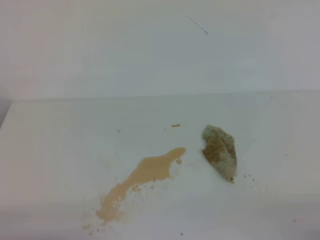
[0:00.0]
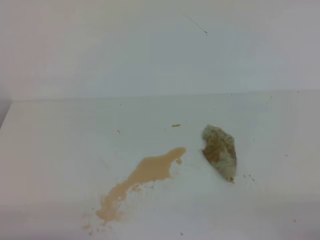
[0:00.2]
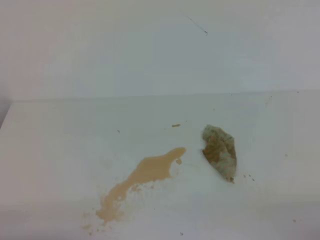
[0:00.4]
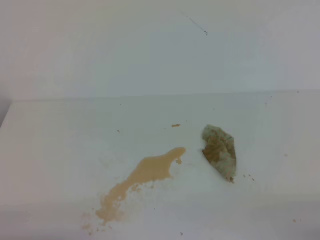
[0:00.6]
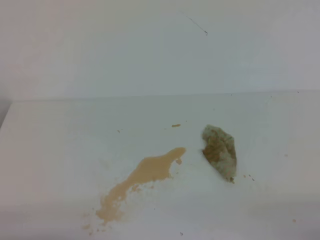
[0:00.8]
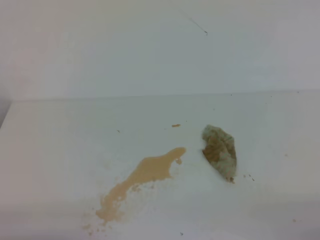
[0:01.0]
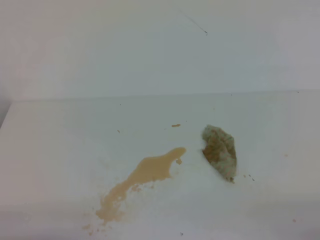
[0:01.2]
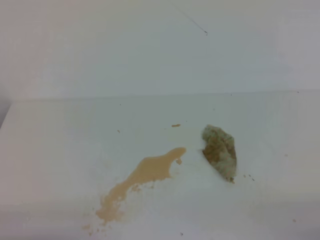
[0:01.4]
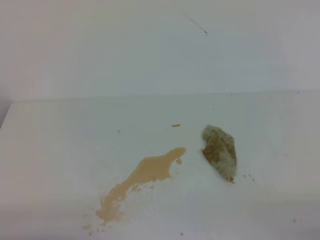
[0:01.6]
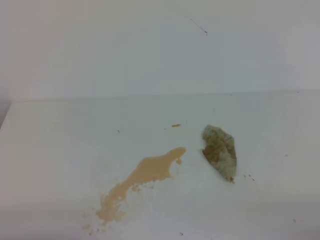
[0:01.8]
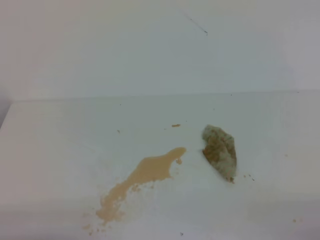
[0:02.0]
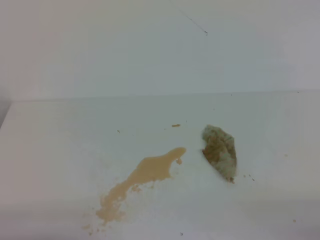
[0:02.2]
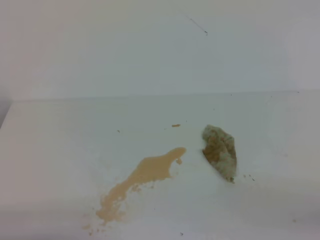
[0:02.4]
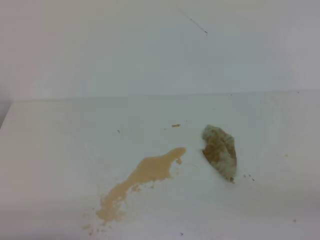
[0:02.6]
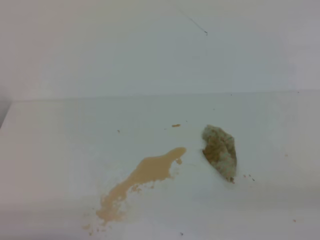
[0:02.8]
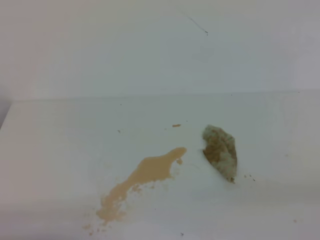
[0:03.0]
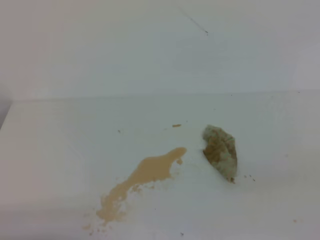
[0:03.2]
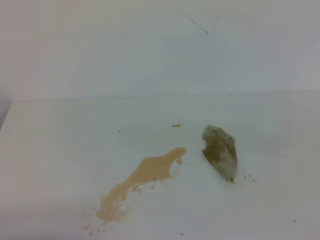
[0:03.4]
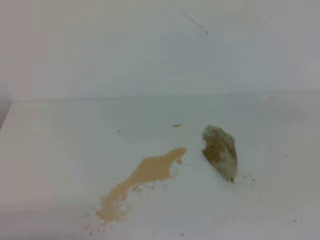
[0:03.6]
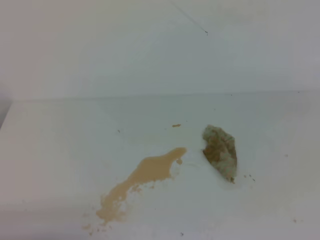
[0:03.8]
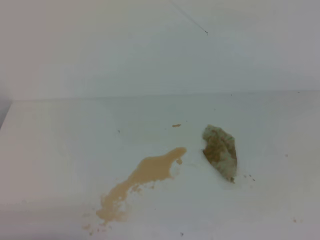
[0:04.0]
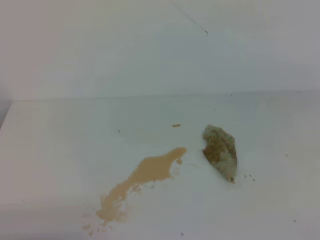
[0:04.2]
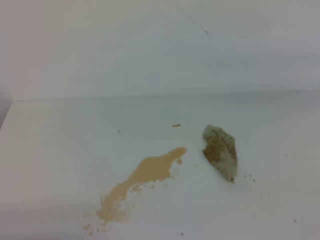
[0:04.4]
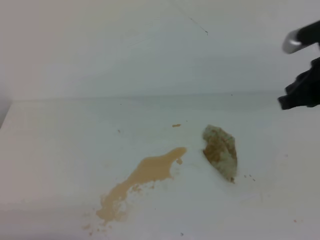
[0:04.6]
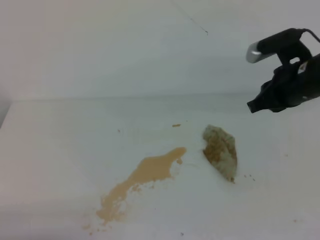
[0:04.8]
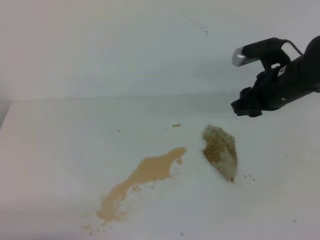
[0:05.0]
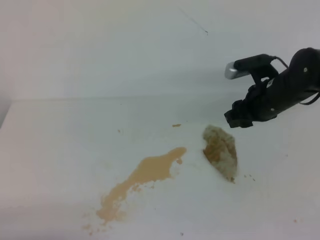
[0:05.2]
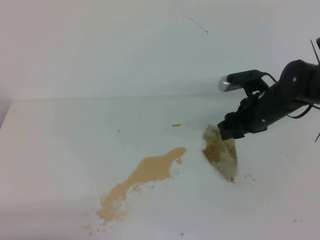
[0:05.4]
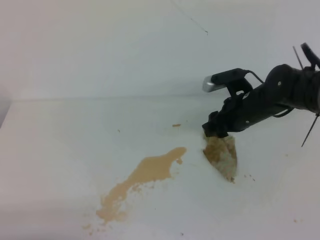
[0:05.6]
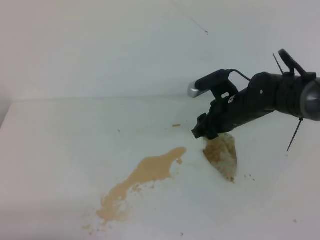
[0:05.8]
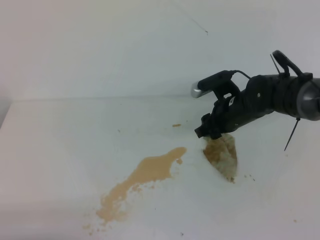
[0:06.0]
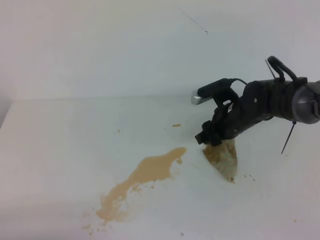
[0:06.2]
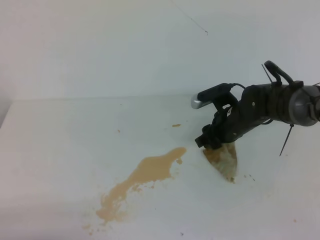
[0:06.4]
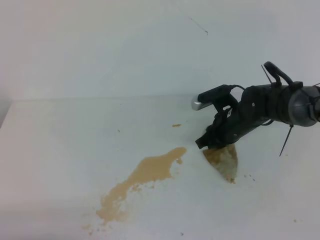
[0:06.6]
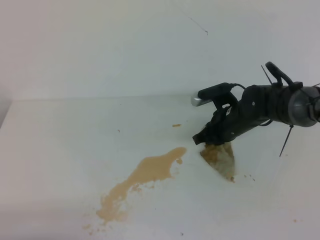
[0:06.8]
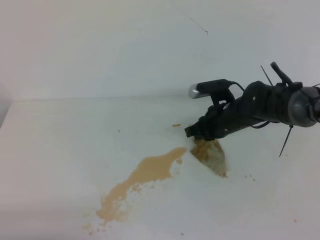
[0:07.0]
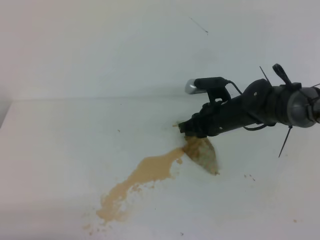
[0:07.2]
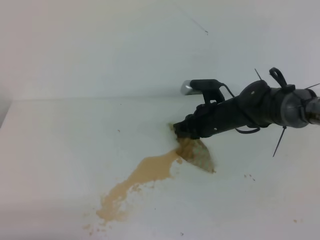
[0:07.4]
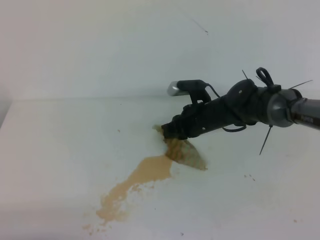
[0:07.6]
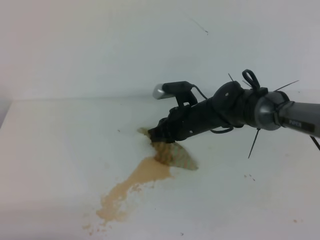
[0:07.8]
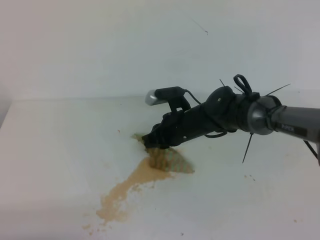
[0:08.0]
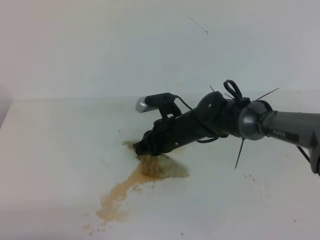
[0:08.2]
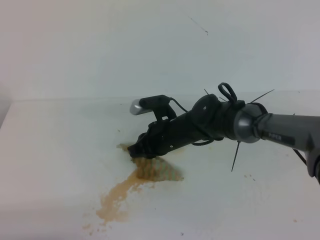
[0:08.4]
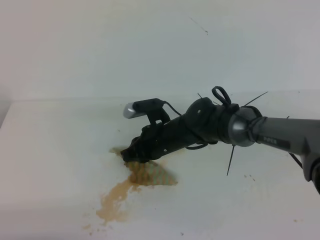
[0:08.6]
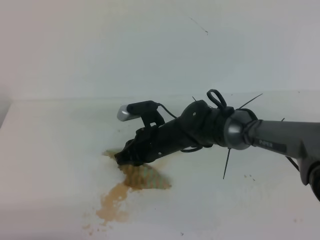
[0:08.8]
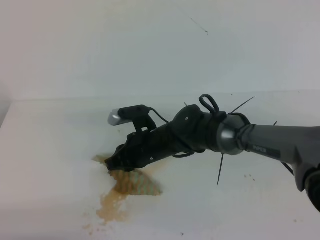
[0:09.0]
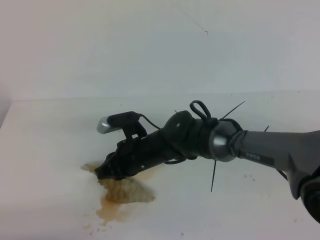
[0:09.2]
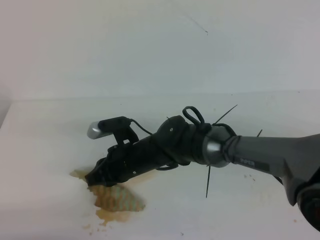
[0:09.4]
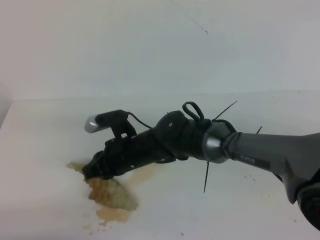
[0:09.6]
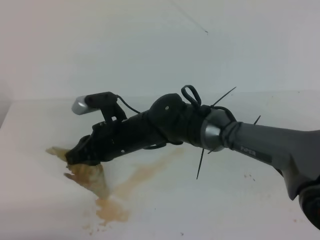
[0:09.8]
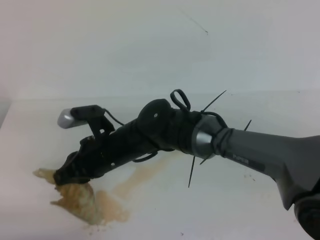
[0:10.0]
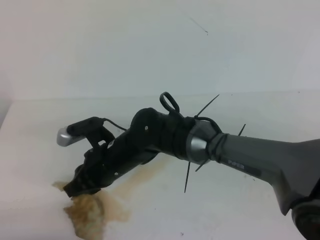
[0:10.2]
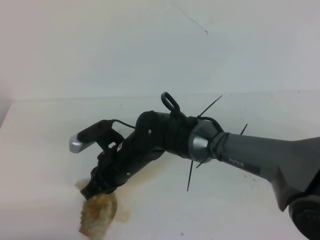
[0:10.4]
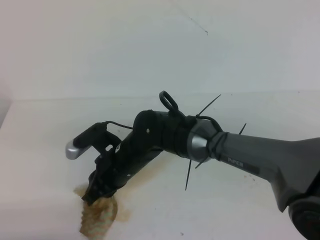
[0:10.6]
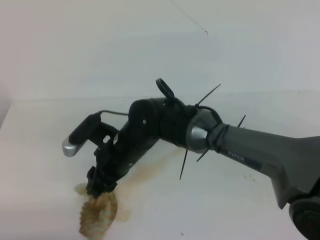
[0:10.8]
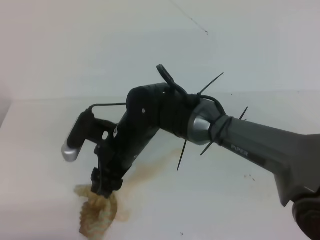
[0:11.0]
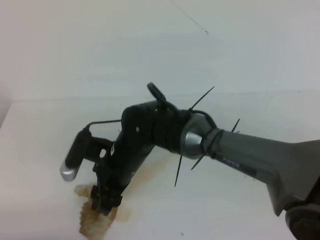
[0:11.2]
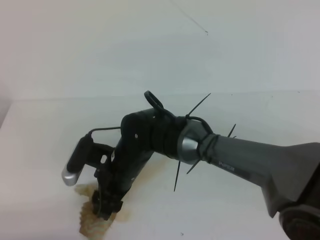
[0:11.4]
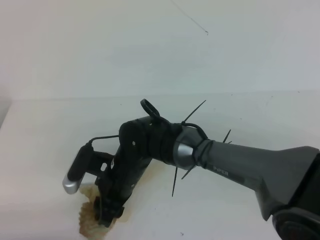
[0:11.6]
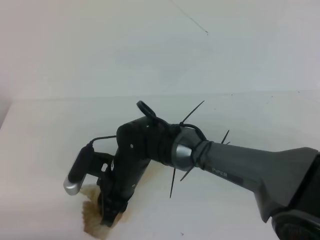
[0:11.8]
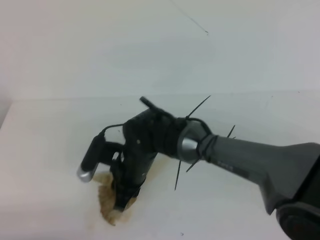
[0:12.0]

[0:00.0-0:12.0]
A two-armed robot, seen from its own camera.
0:00.0 to 0:01.6: Both grippers stay put.
0:04.4 to 0:06.0: The right gripper is displaced downward, to the left and forward by about 30 cm, and opens up.
0:06.0 to 0:07.6: The right gripper shifts by some 5 cm, and closes its fingers.
0:07.6 to 0:09.0: The right gripper moves to the left and backward, roughly 15 cm.
0:09.0 to 0:10.4: The right gripper goes some 5 cm to the left.
0:10.4 to 0:12.0: The right gripper opens.

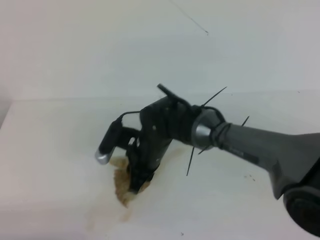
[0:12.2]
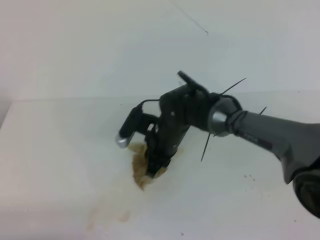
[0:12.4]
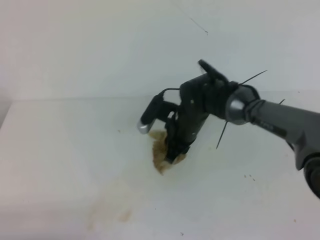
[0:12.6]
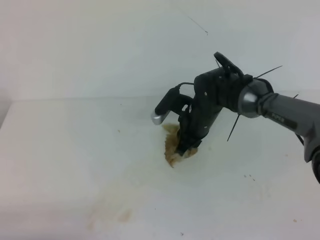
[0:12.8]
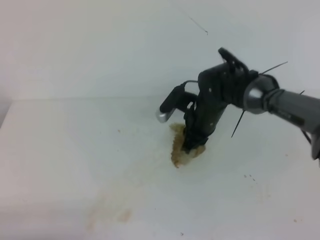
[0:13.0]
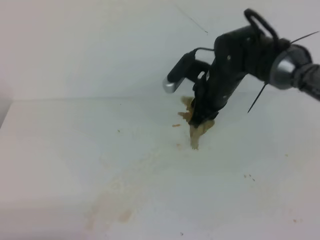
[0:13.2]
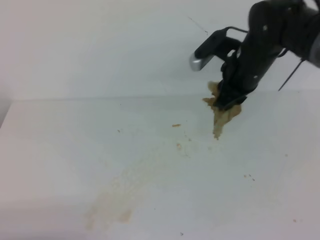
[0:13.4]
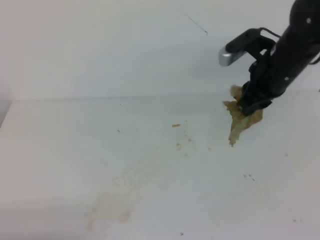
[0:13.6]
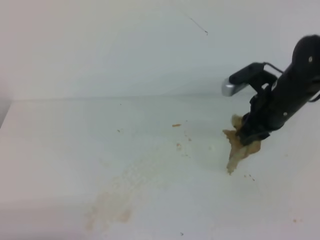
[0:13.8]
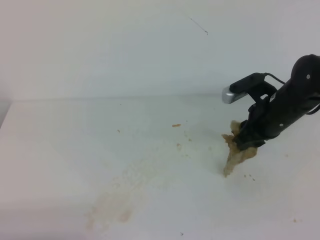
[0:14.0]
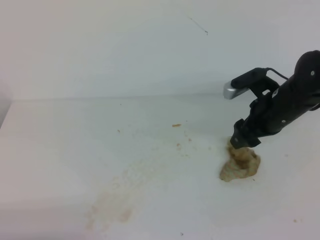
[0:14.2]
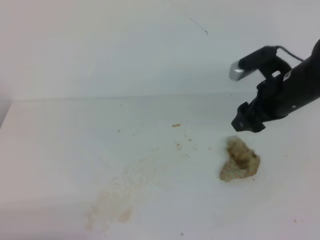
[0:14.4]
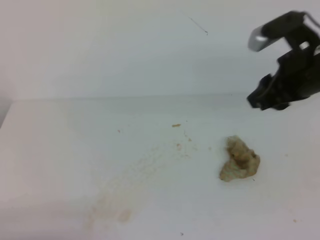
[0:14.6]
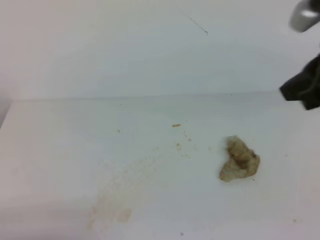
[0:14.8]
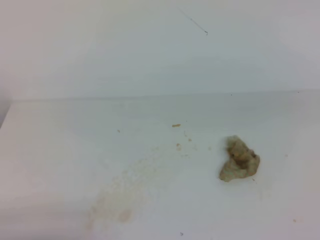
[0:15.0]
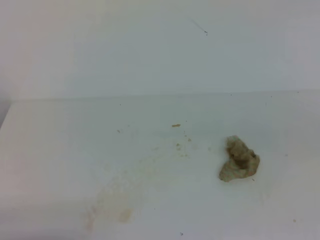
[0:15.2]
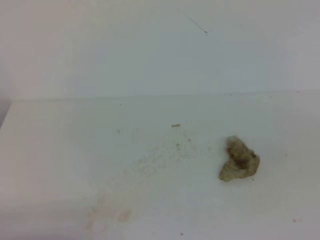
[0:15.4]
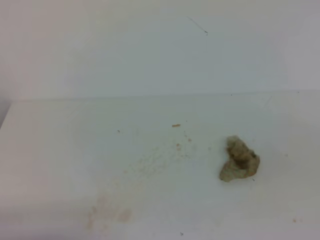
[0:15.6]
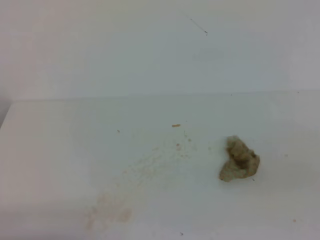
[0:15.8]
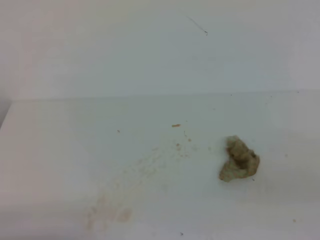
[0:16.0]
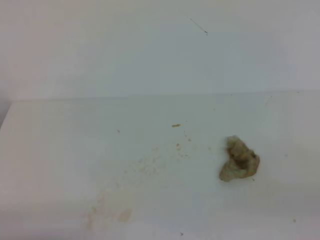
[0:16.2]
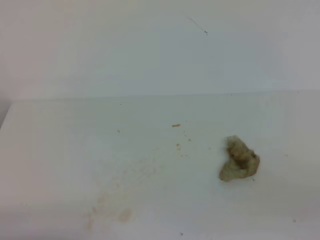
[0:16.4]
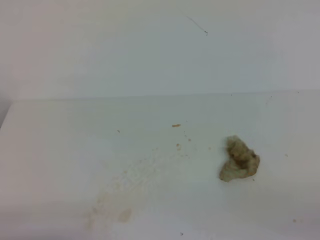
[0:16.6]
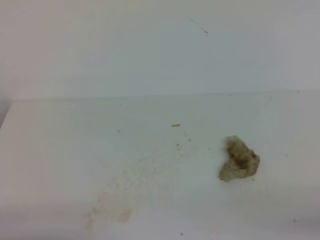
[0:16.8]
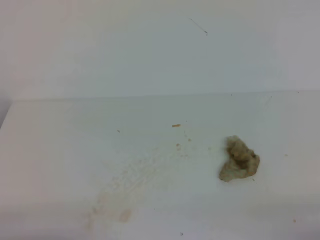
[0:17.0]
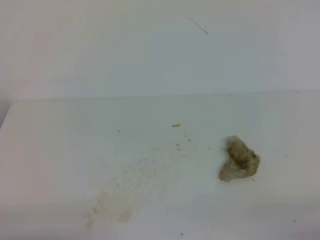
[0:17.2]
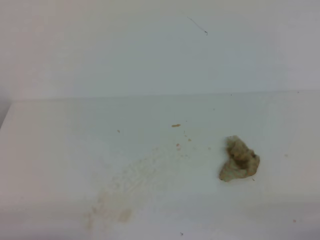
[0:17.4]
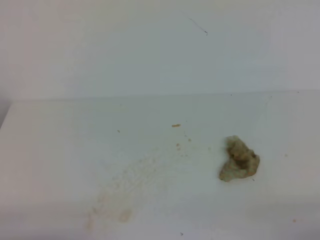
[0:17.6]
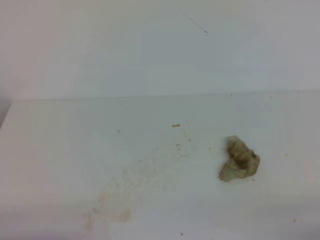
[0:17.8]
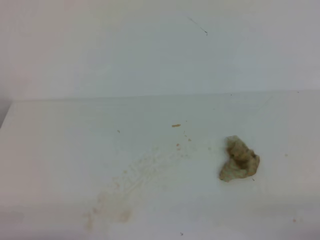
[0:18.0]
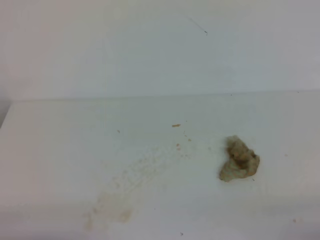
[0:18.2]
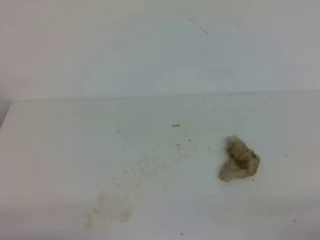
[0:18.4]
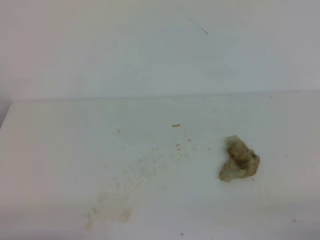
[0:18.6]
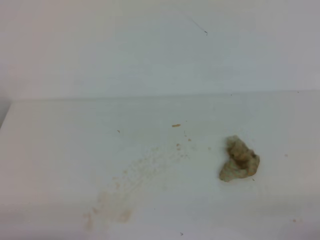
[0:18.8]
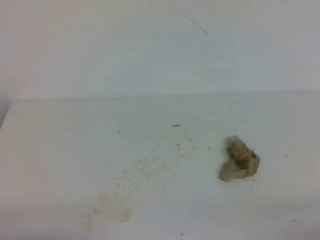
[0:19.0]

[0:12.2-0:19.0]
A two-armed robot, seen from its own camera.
0:12.2 to 0:13.6: The right gripper heads to the right and upward, covering about 25 cm.
0:13.6 to 0:15.0: The right gripper heads backward and upward, covering roughly 25 cm, and closes.
0:15.0 to 0:16.2: The right gripper heads downward, backward and to the right, covering about 20 cm.
0:17.6 to 0:19.0: The two grippers keep their place.
